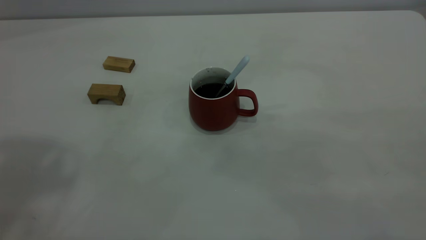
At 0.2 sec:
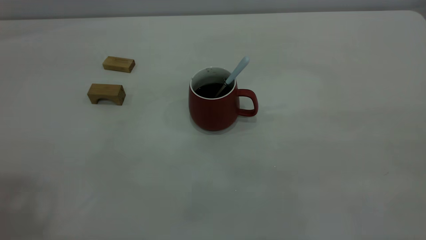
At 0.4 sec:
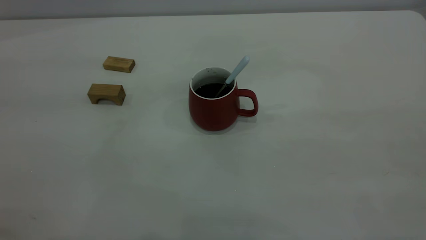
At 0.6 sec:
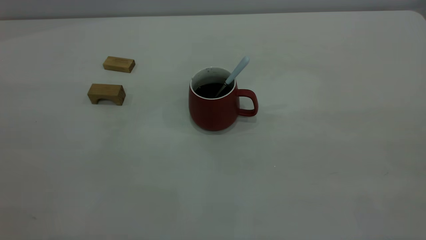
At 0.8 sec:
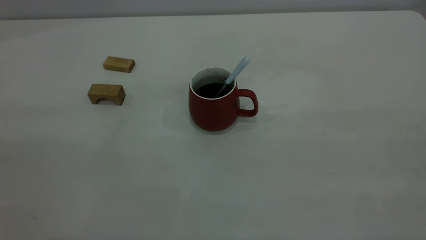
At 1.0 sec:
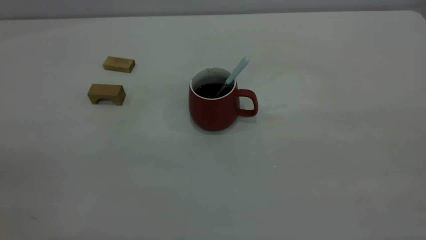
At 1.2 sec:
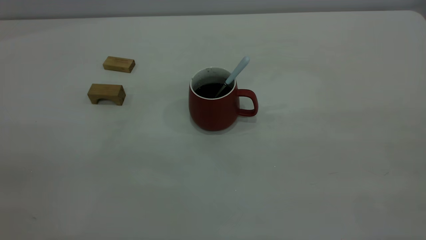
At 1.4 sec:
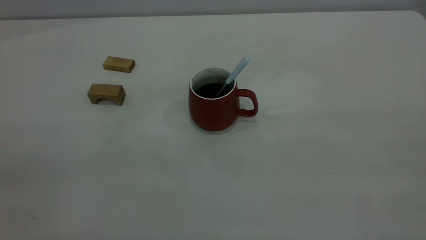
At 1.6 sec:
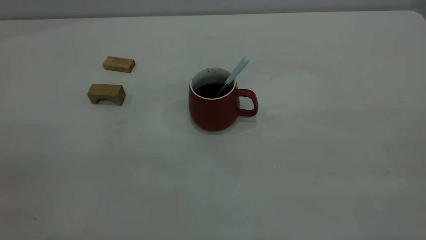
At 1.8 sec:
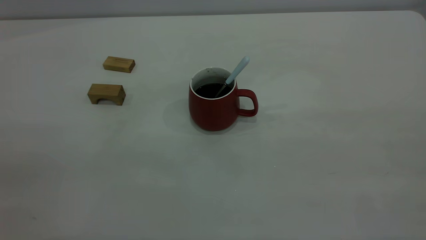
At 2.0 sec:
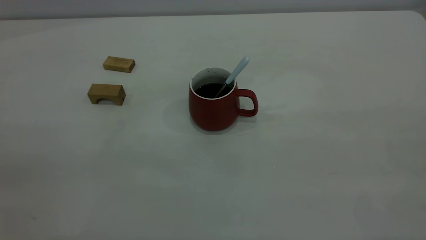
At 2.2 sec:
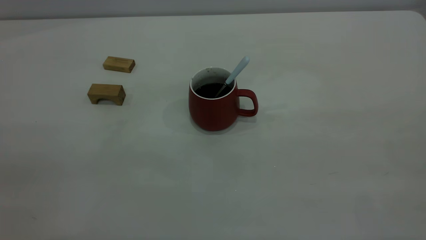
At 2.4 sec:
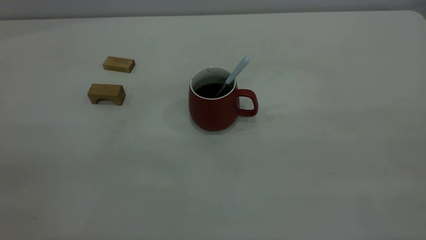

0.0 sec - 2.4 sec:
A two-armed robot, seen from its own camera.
1.2 sec - 2.4 sec: Both grippers stay about where they are.
